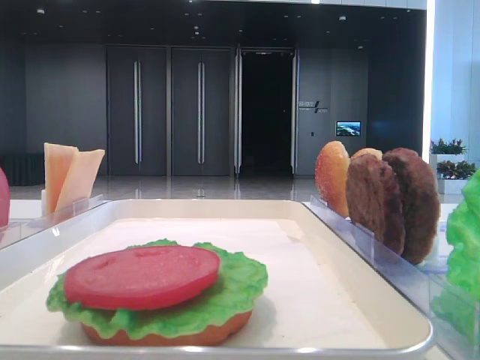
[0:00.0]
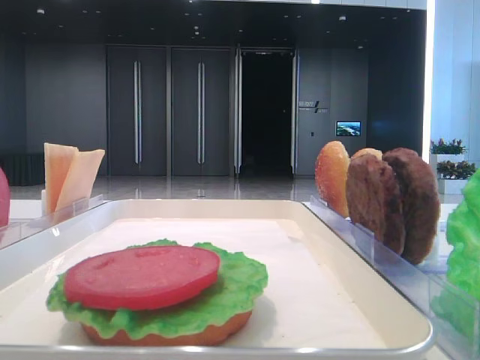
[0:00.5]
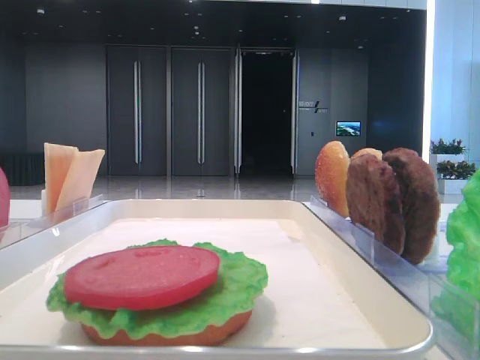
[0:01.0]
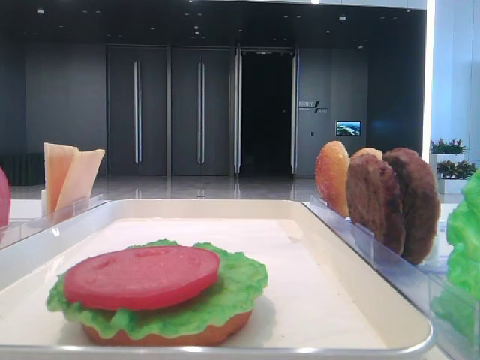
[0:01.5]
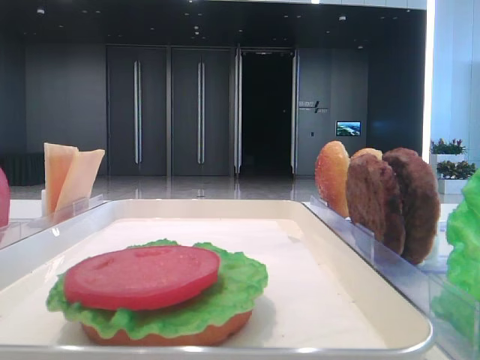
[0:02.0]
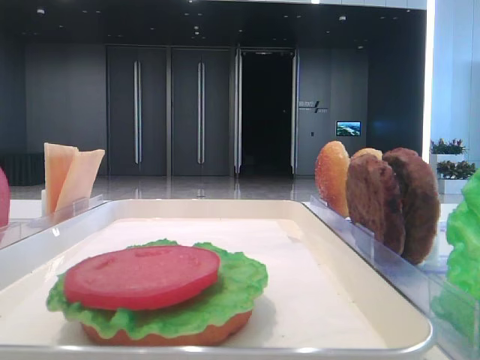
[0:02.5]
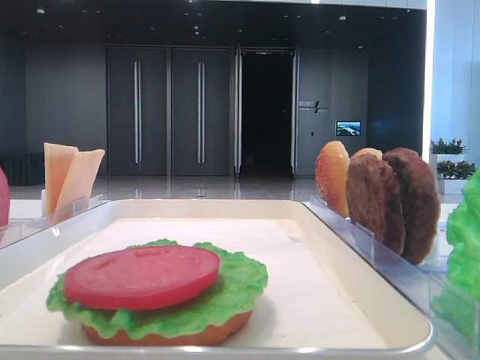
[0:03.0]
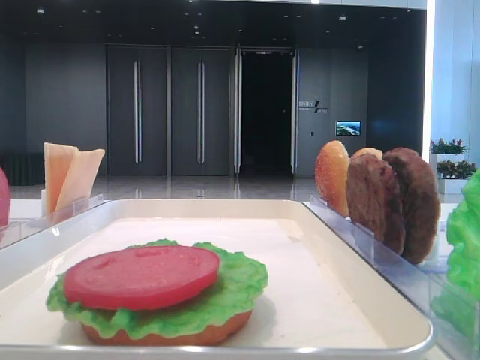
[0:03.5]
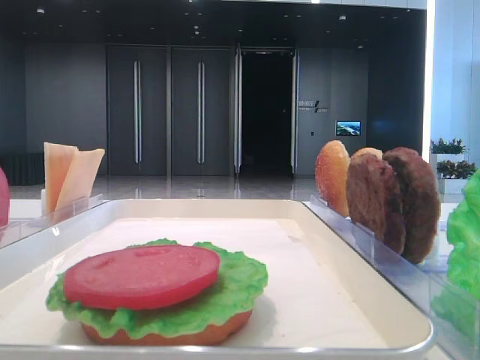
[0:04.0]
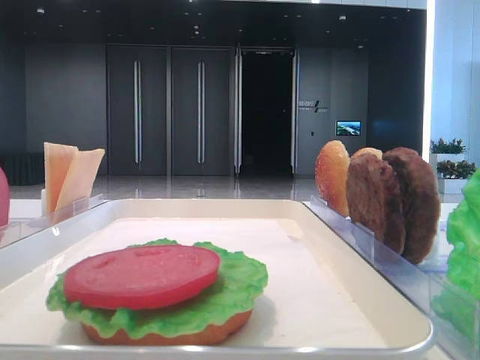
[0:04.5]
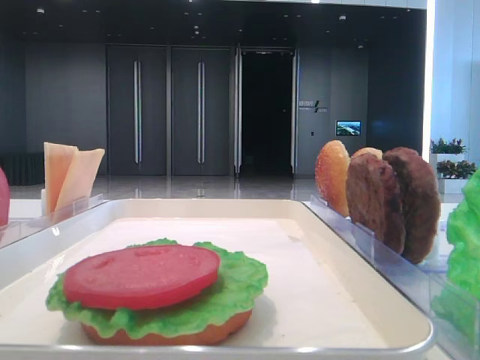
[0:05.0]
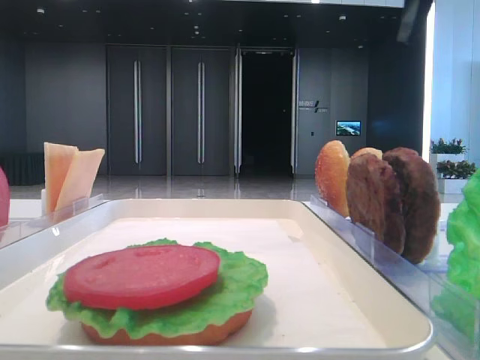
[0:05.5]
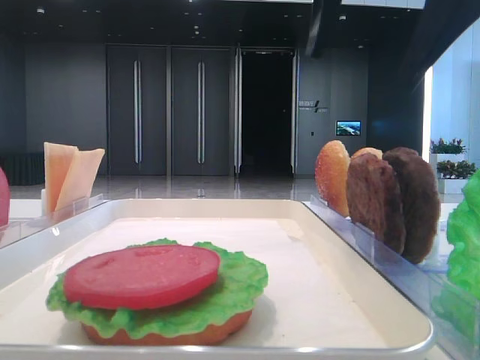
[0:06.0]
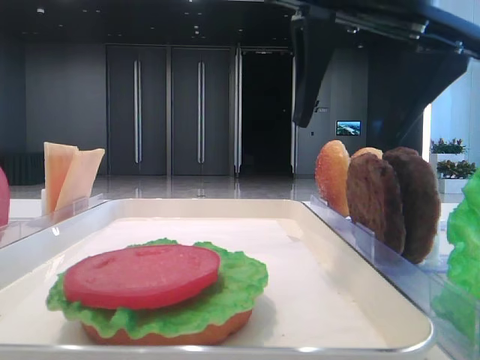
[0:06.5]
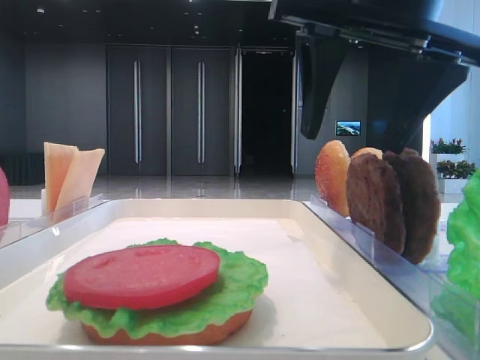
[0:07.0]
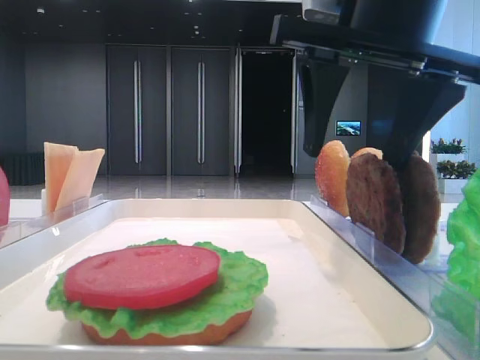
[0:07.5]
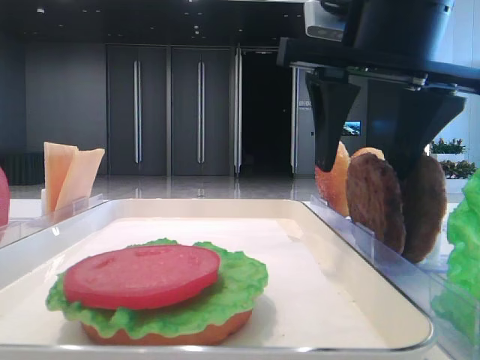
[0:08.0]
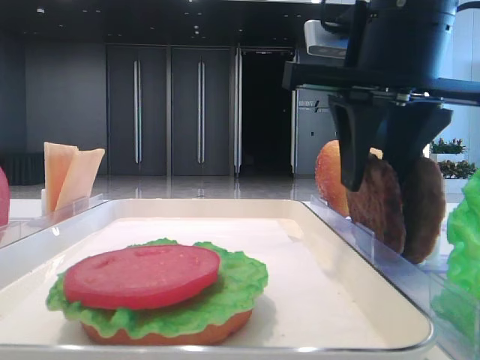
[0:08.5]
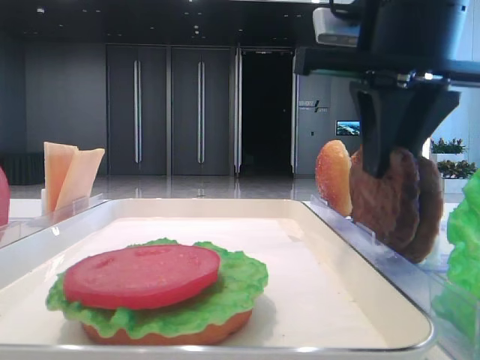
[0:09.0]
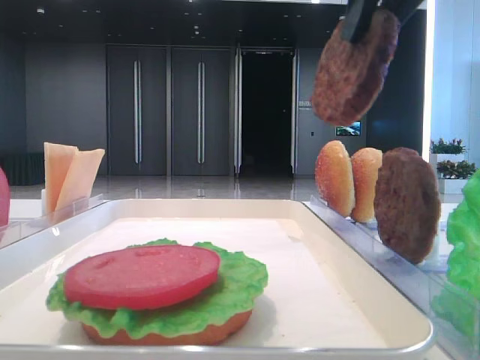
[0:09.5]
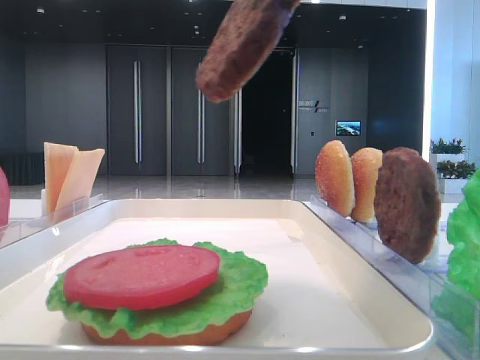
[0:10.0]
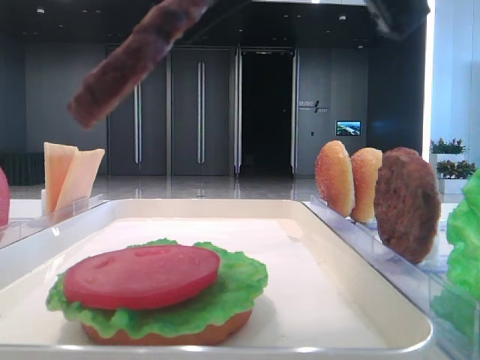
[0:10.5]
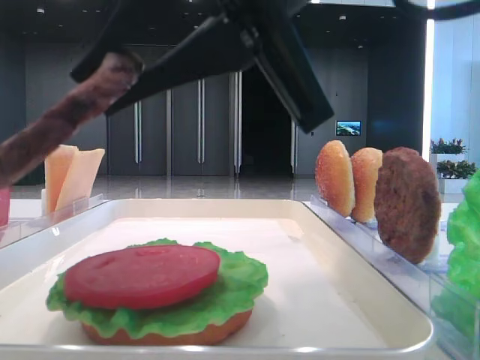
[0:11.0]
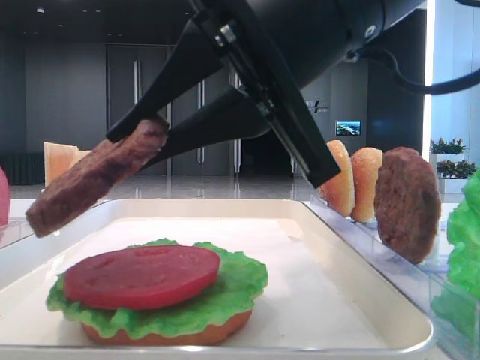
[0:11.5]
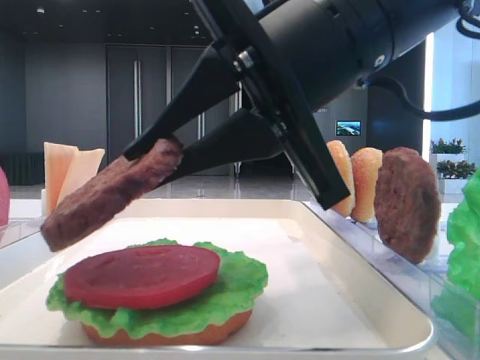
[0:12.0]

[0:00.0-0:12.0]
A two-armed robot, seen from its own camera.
Step, 0:00.0 to 0:08.5: Grab the patty with the right hand.
0:04.0 to 0:06.0: The right gripper moves to the left and forward, roughly 20 cm.
0:06.0 to 0:08.0: The right gripper goes approximately 5 cm downward.
0:08.0 to 0:10.0: The right gripper is displaced backward and upward by about 10 cm, and closes up.
0:10.0 to 0:12.0: The right gripper shifts roughly 10 cm downward.

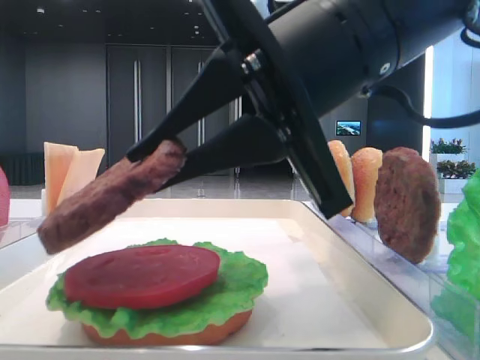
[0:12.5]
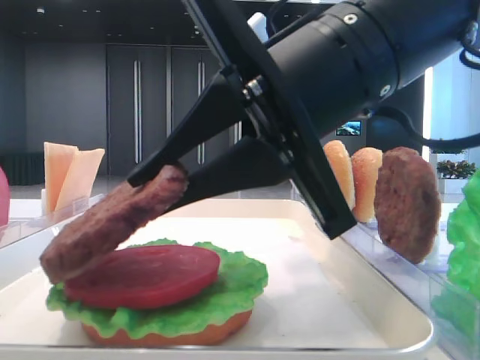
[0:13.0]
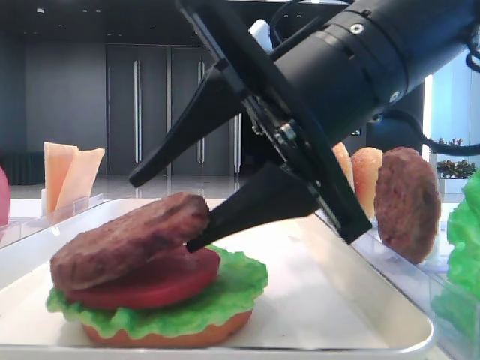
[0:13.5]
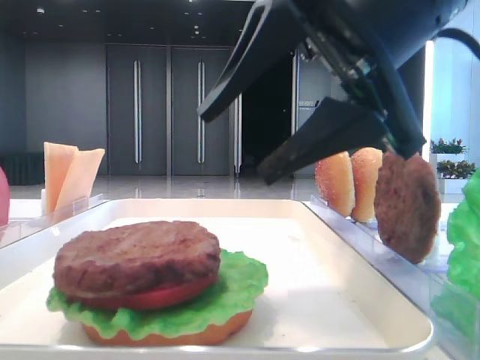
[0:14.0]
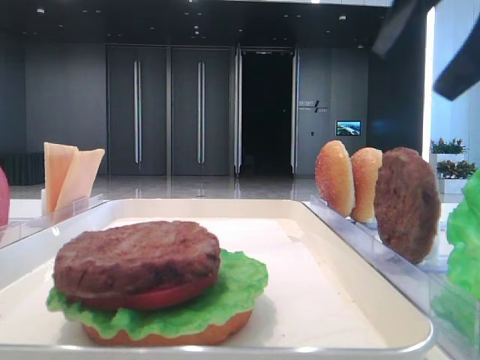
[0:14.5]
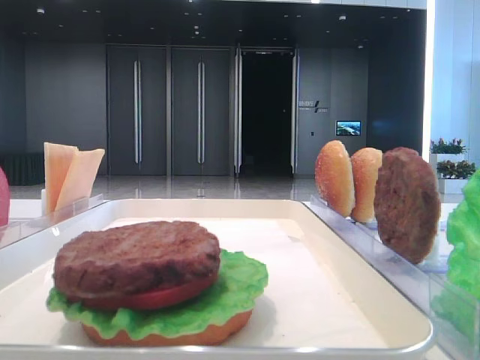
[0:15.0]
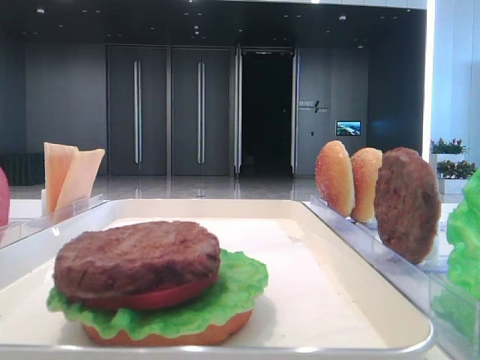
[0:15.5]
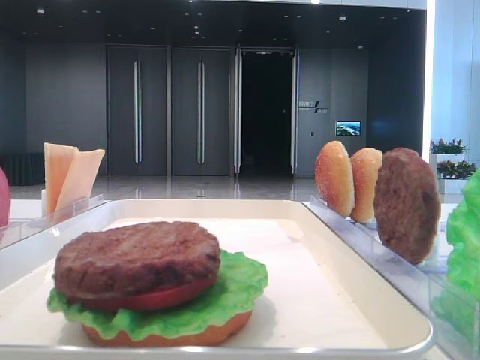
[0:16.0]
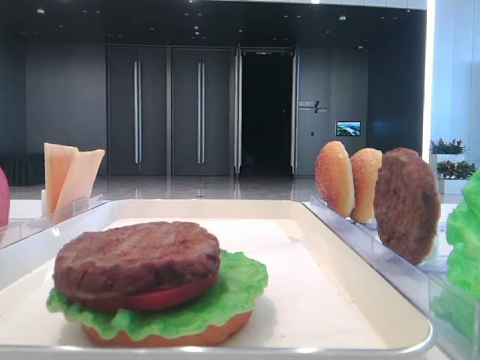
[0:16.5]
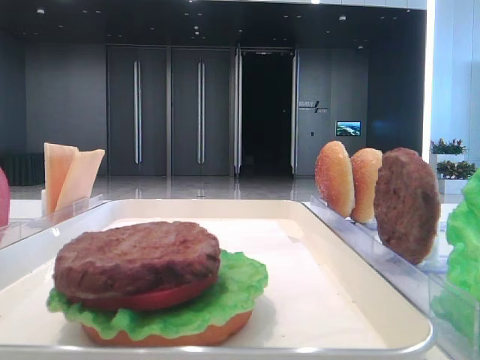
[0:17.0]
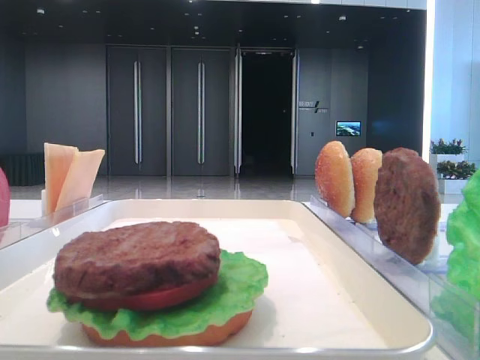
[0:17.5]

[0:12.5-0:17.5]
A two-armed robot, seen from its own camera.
0:12.5 to 0:15.0: The right gripper goes some 25 cm to the right and upward, and opens its fingers.

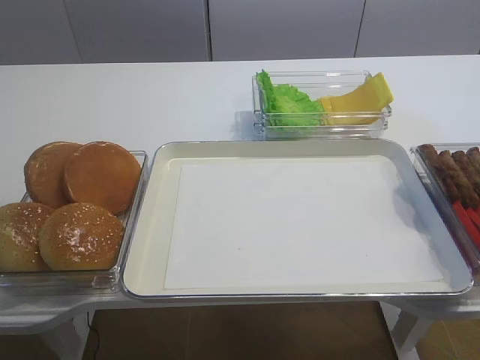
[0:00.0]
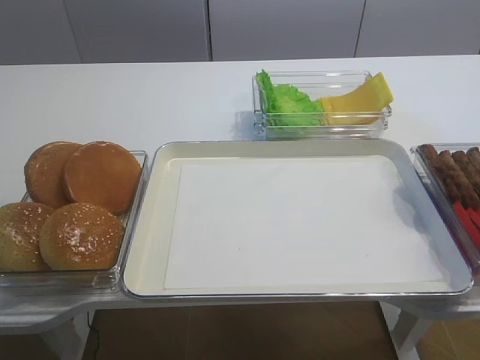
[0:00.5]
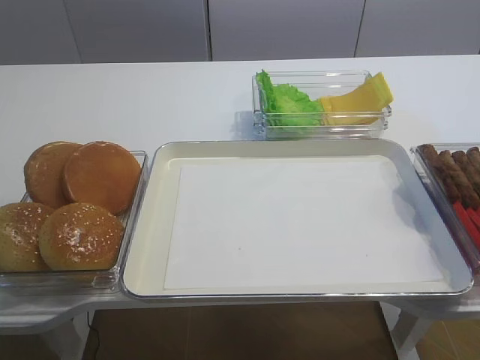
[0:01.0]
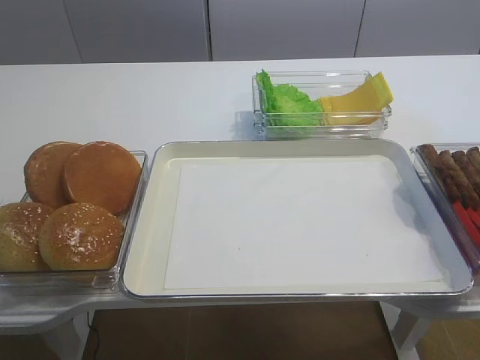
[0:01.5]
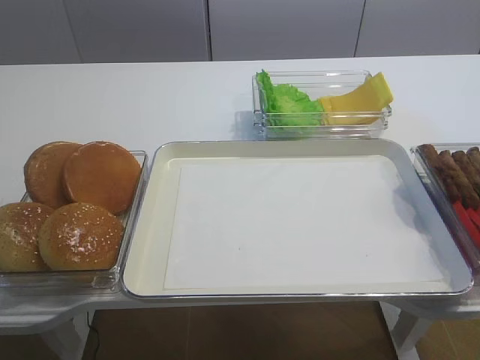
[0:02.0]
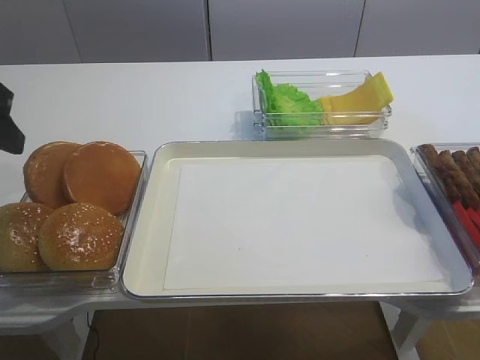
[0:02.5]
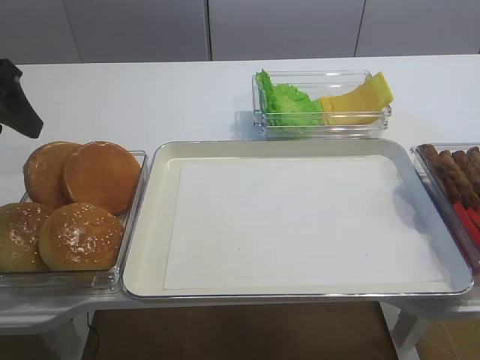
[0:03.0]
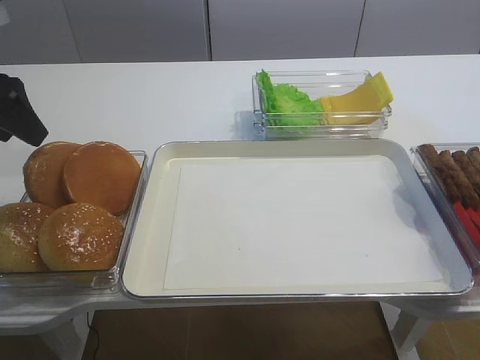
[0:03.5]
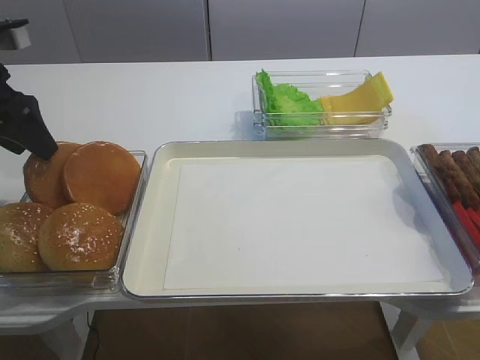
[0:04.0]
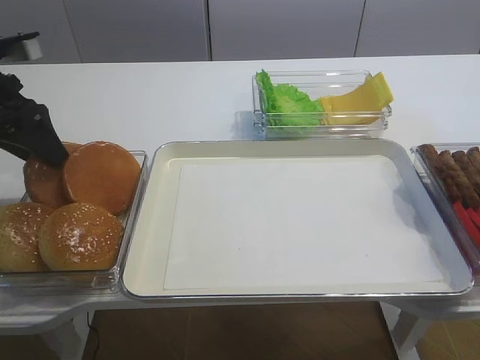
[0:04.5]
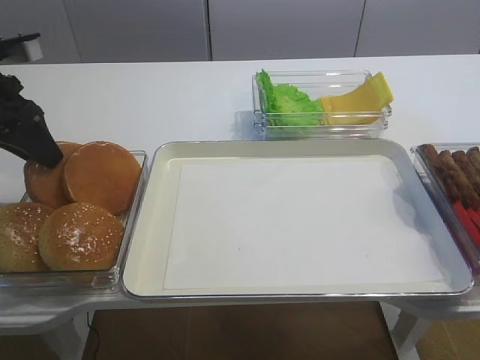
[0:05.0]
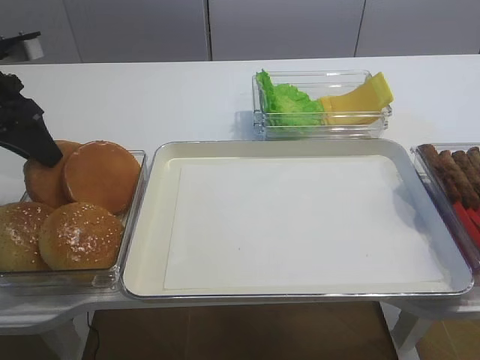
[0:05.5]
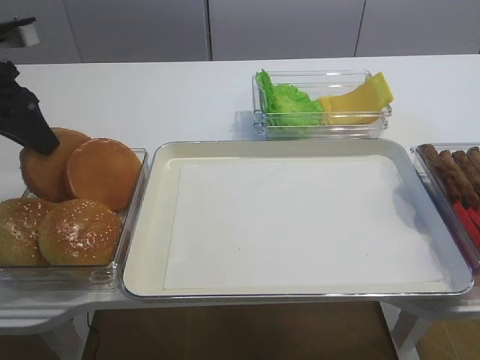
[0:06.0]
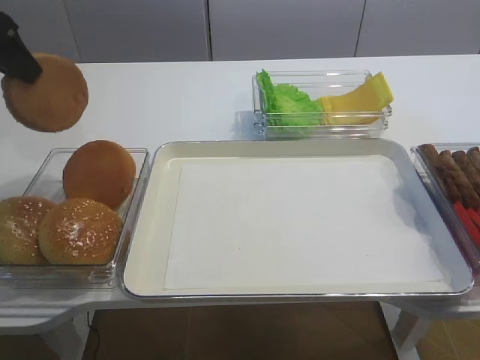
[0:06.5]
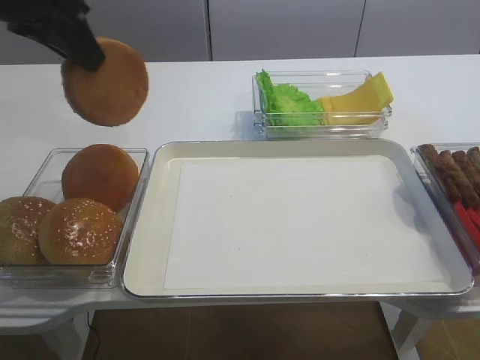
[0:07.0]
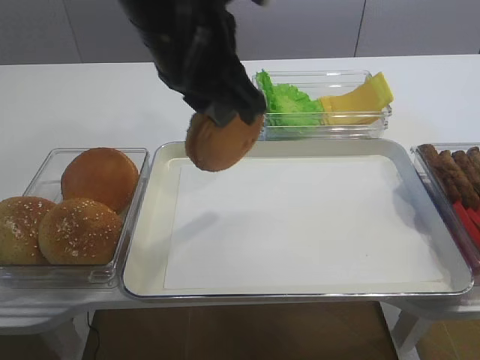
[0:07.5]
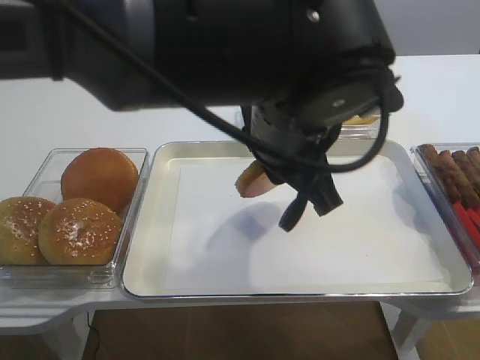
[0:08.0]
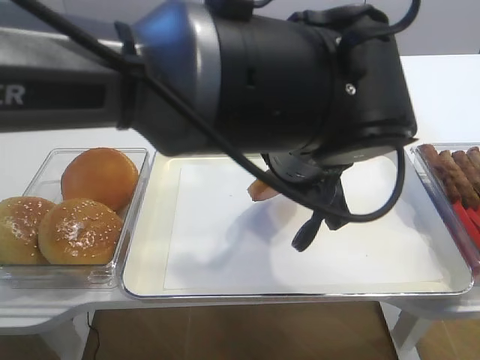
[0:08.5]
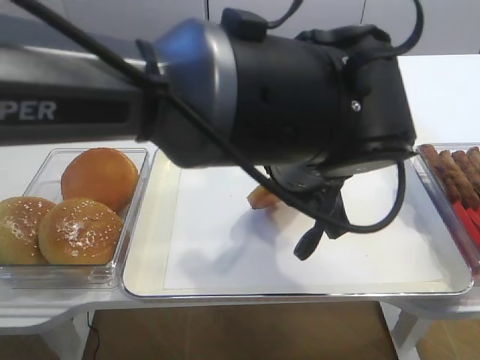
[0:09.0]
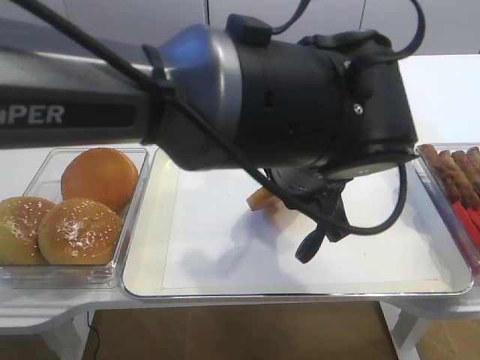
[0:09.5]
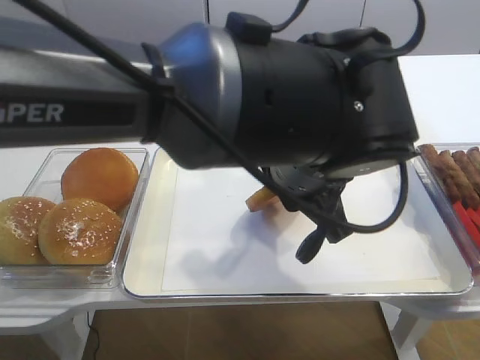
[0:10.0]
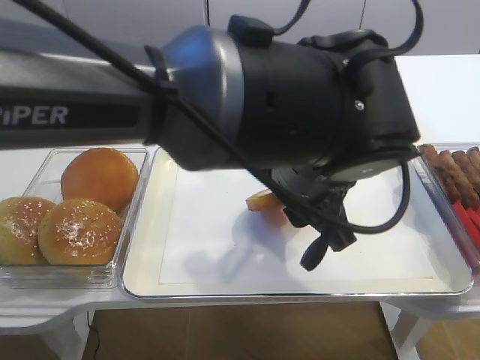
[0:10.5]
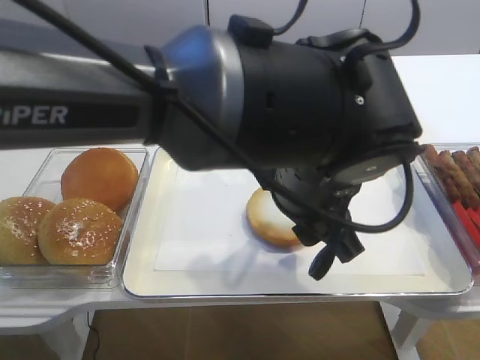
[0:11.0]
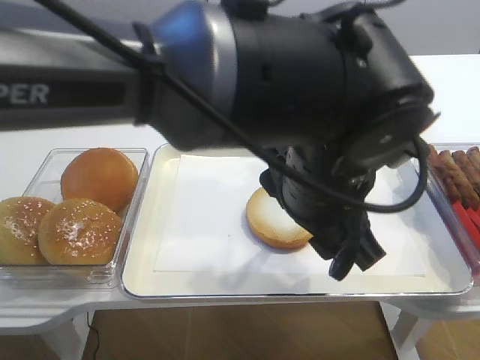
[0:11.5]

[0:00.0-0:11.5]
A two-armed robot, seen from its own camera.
Step, 0:00.0 to 0:06.0: Pick up the bread slice with the left gripper.
Step, 0:06.5 to 0:11.0: Place the bread slice on the tray with the left gripper.
0:02.0 to 0:04.0: The left gripper is displaced forward by some 25 cm.
0:04.0 to 0:06.0: The left gripper closes.
0:06.0 to 0:07.5: The left gripper moves to the right and upward, about 25 cm.
0:07.5 to 0:09.5: The left gripper is displaced to the right and downward by about 15 cm.
0:09.5 to 0:11.5: The left gripper opens.
